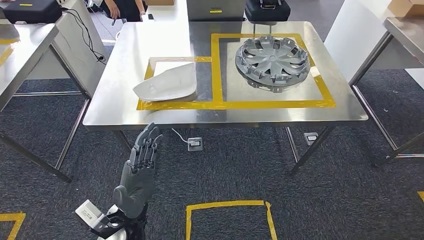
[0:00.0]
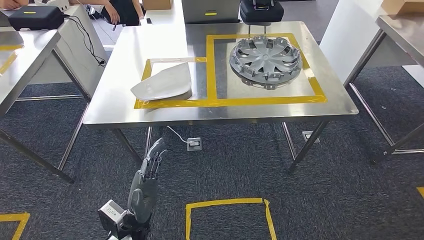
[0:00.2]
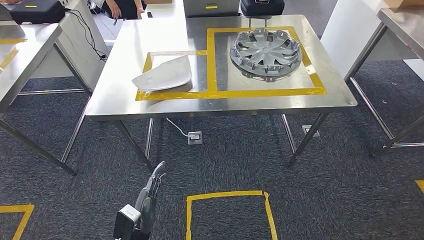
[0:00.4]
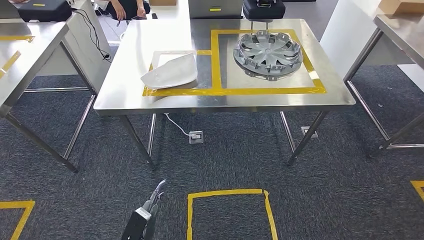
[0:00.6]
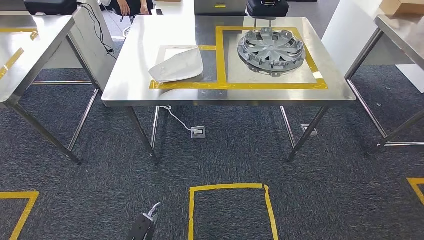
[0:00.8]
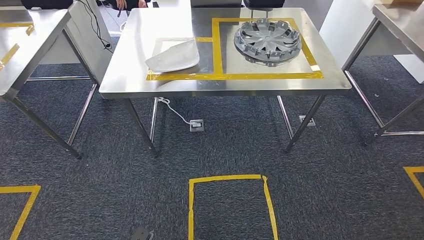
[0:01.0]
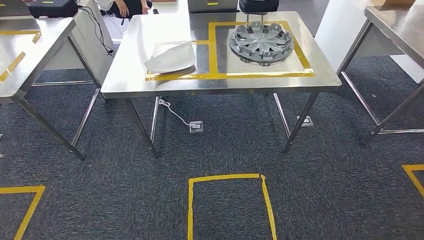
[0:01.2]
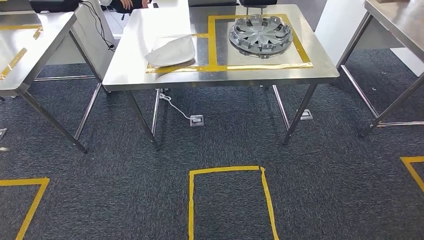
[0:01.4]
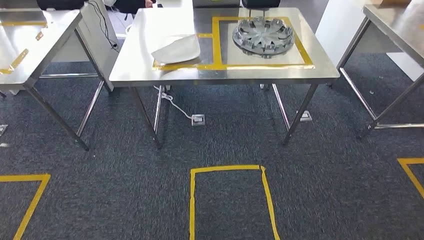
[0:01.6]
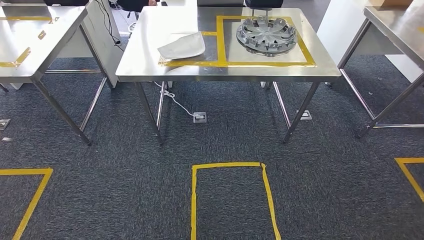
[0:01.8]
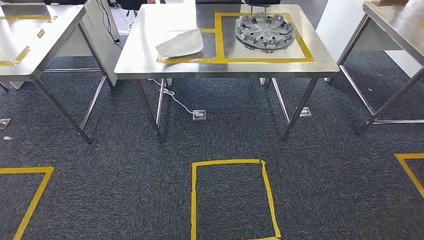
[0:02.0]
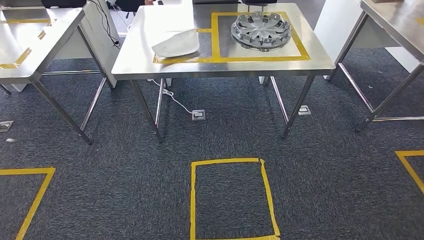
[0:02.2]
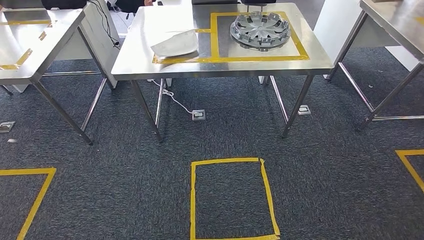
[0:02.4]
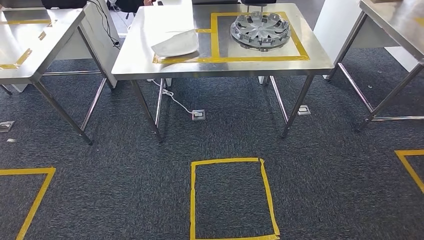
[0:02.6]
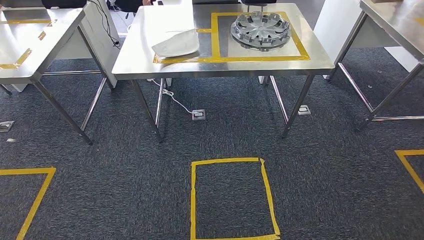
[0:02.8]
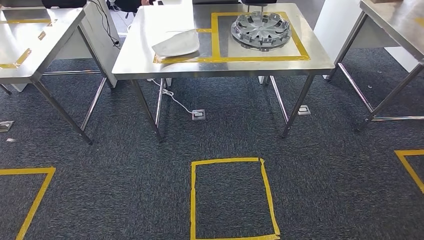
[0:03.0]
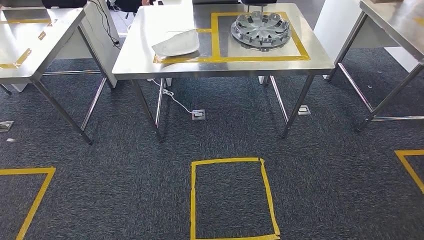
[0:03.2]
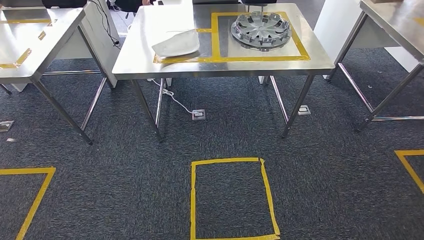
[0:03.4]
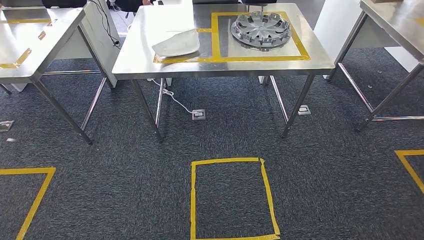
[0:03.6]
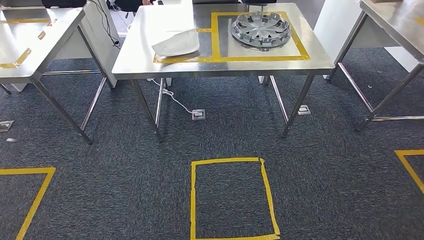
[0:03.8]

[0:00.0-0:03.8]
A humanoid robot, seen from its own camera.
Step, 0:00.0 to 0:03.8: Move to the initial position at the workbench.
0:02.6 to 0:03.8: The hands stay close to where they were, moving slightly.
